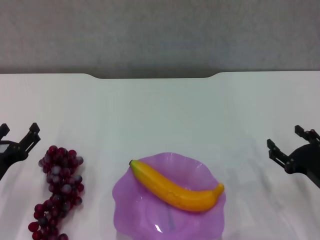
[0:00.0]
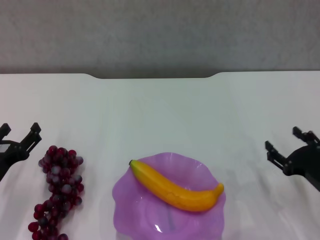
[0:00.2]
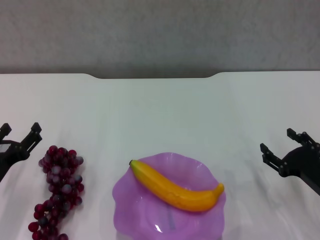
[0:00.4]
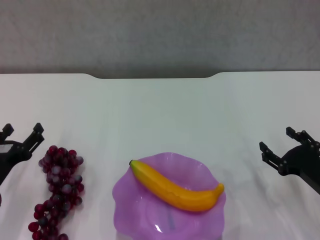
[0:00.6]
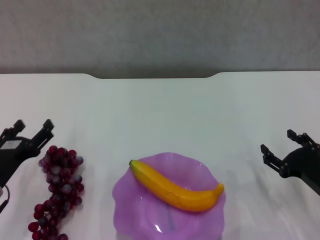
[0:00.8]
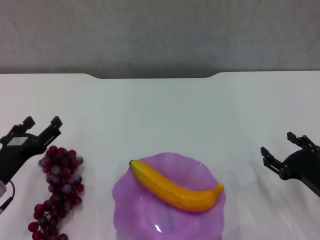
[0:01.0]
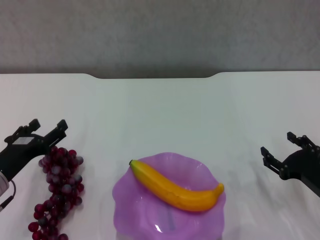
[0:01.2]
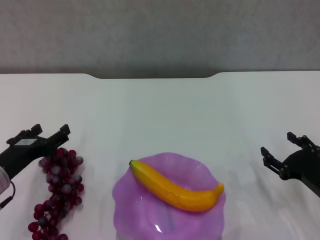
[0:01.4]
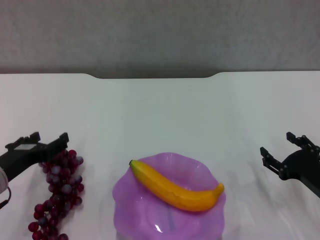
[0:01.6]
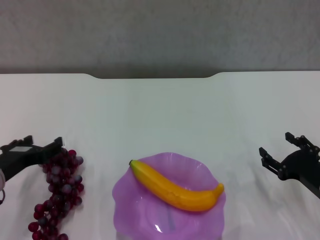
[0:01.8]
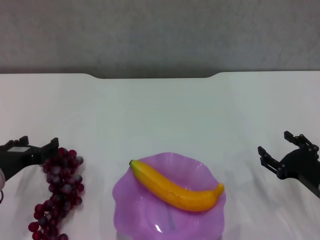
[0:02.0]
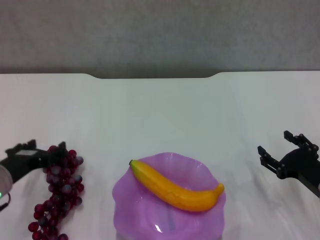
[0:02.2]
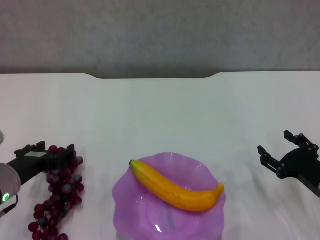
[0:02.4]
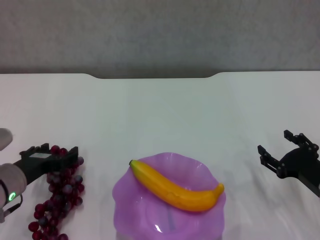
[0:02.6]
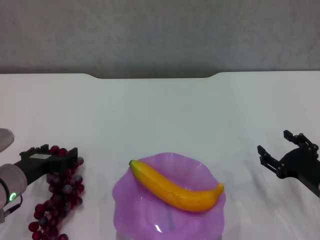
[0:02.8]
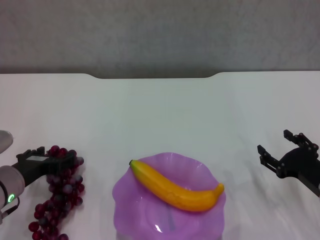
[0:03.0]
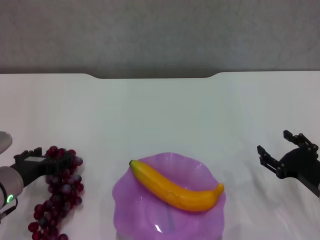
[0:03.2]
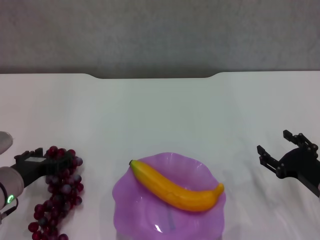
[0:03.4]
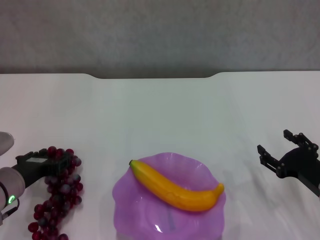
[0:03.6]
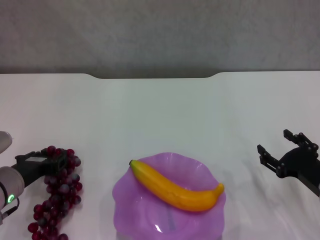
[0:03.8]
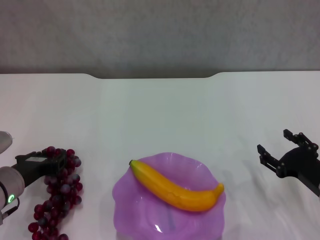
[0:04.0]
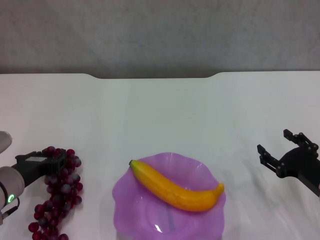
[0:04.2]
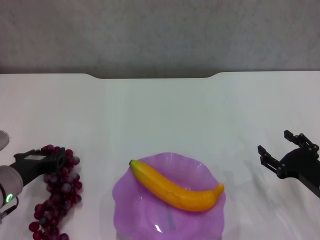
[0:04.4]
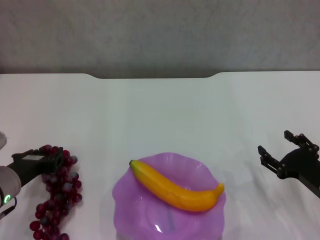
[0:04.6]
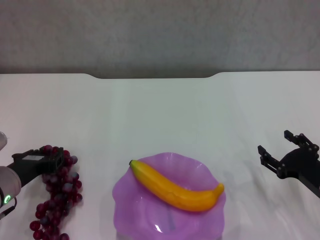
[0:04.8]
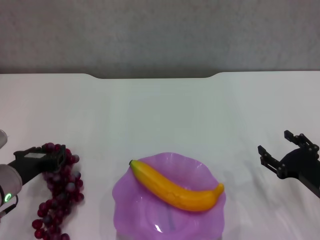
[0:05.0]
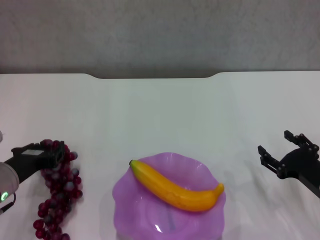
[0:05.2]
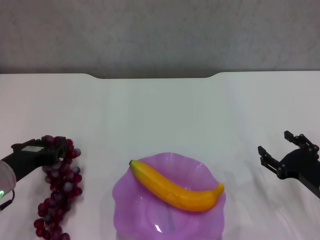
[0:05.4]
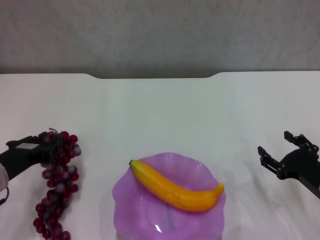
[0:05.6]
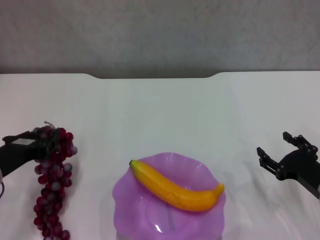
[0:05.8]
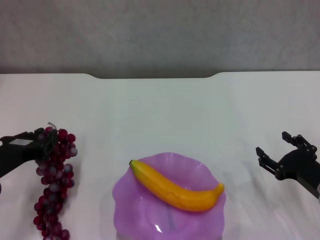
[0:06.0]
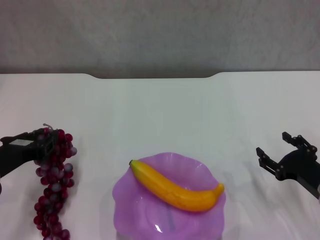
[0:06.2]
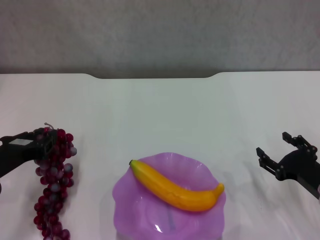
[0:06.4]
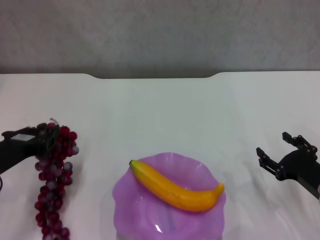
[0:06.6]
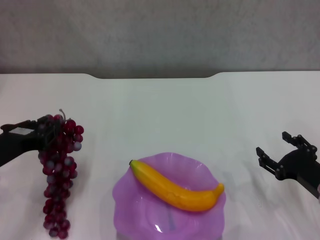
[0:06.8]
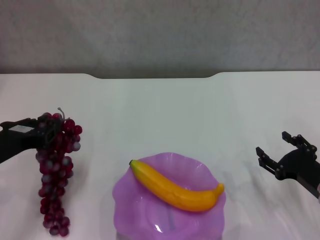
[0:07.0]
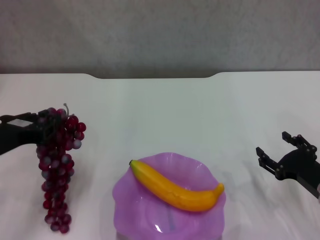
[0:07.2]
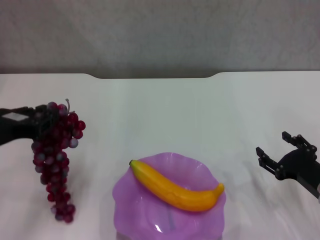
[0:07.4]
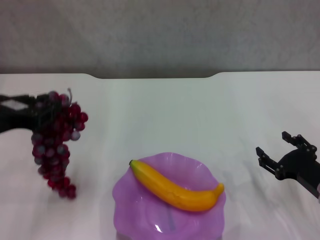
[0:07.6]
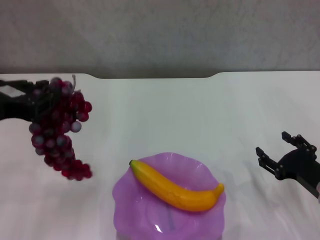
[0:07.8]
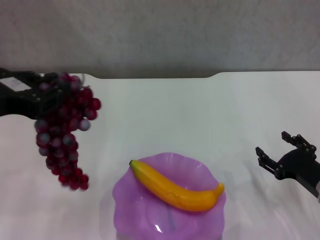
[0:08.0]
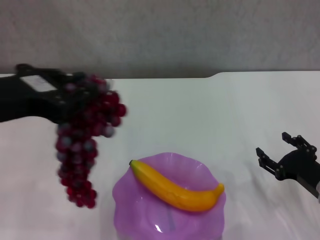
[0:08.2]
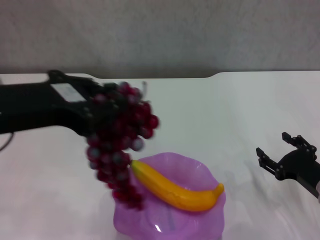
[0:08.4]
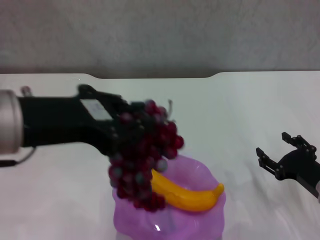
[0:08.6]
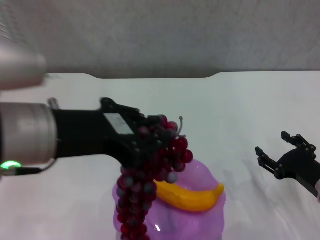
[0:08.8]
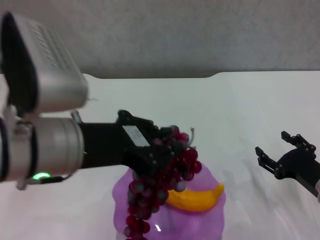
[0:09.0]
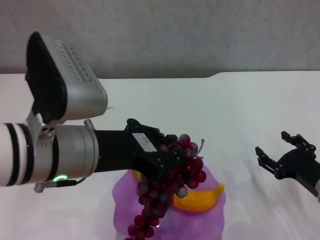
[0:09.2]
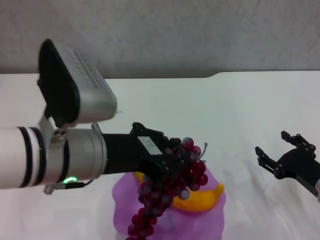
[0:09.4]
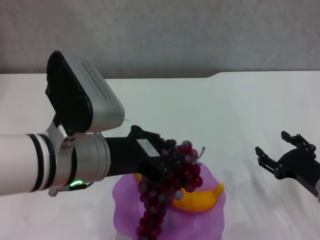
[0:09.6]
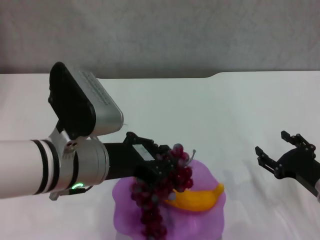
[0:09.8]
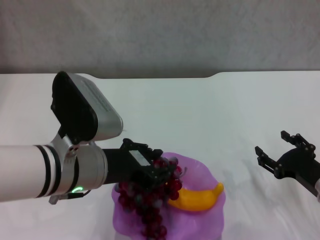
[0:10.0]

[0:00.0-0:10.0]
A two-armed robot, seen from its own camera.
Step, 0:00.0 to 0:04.2: Grasp the grape with left gripper.
0:00.0 to 0:01.4: There are only small adjustments of the grippers.
0:01.4 to 0:02.8: There are only small adjustments of the grippers.
0:02.8 to 0:04.2: The left gripper closes.
0:04.2 to 0:05.8: The left gripper shifts some 5 cm upward.
0:05.8 to 0:07.2: The left gripper heads upward, covering roughly 5 cm.
0:07.2 to 0:08.6: The left gripper heads upward and to the right, covering about 15 cm.
0:08.6 to 0:10.0: The left gripper is displaced downward and to the right by roughly 15 cm.

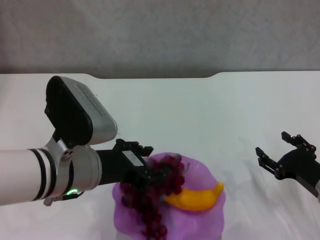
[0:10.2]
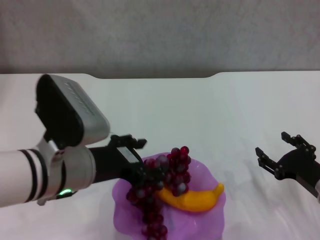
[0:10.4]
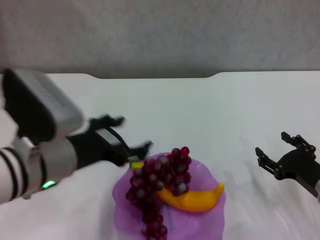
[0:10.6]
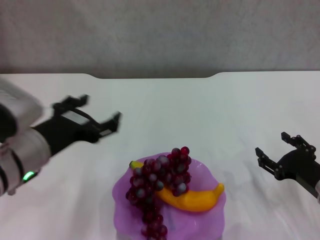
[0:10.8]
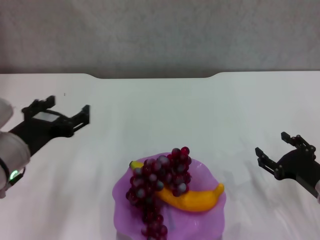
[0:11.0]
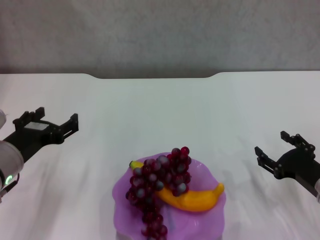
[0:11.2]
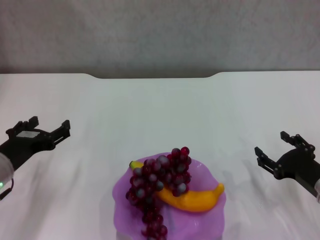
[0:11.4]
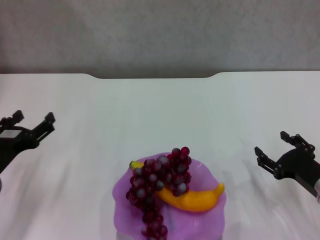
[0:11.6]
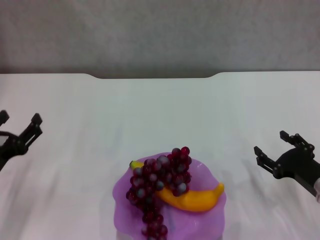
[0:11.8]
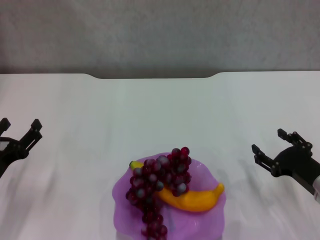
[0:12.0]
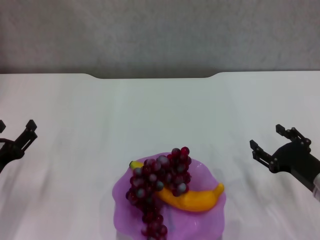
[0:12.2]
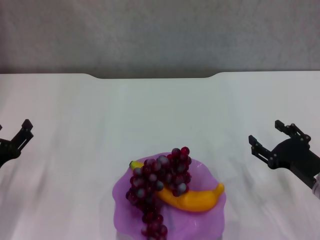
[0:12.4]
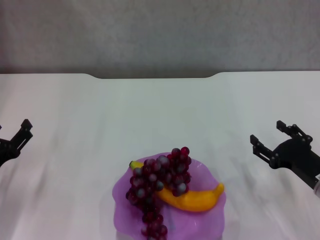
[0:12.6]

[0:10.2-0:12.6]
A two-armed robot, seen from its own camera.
0:10.2 to 0:11.4: The left gripper travels to the left and downward by approximately 15 cm, and opens.
0:11.4 to 0:12.6: The left gripper is displaced downward by some 5 cm.

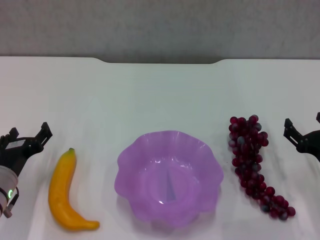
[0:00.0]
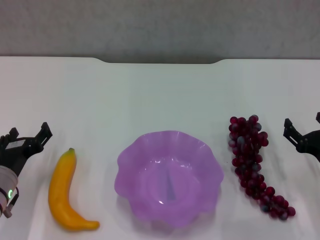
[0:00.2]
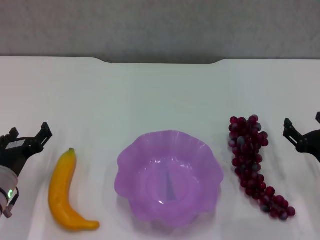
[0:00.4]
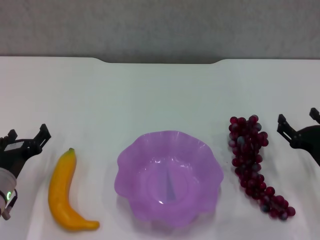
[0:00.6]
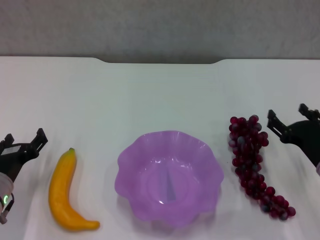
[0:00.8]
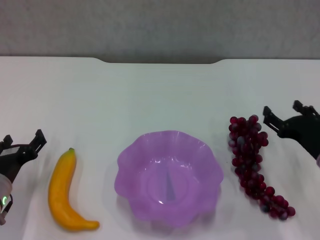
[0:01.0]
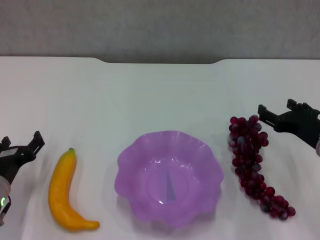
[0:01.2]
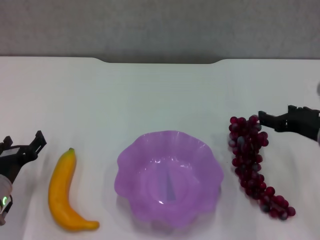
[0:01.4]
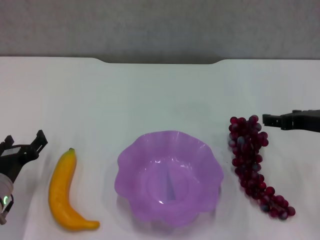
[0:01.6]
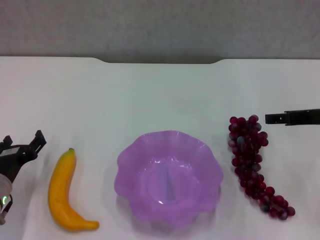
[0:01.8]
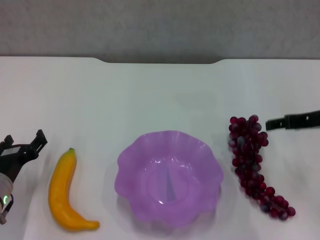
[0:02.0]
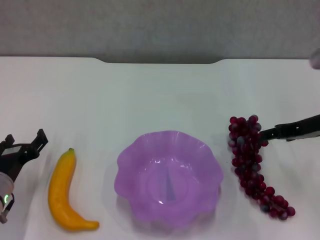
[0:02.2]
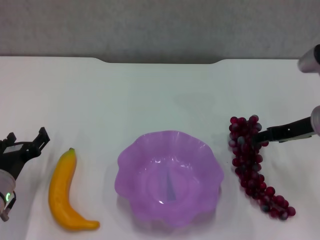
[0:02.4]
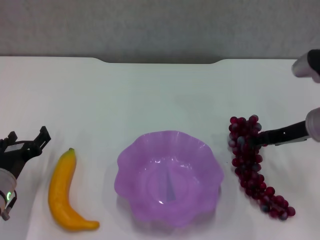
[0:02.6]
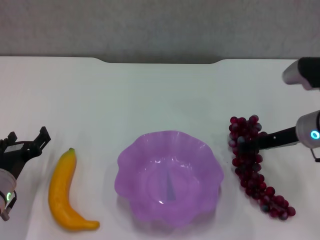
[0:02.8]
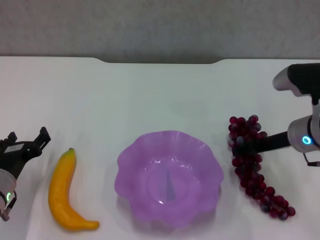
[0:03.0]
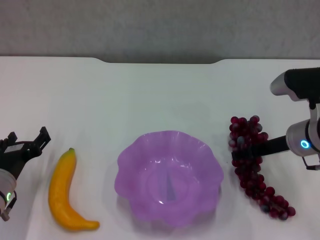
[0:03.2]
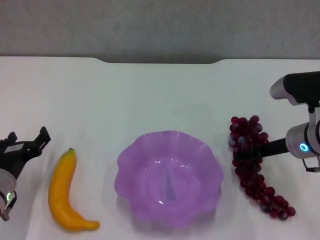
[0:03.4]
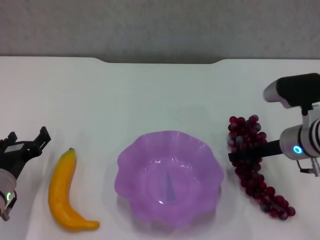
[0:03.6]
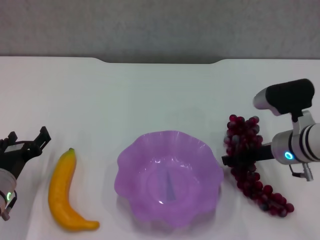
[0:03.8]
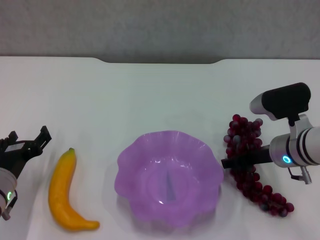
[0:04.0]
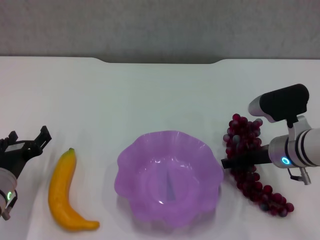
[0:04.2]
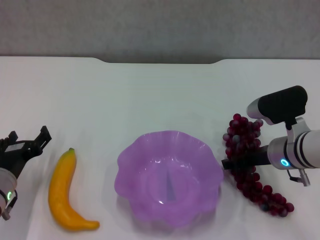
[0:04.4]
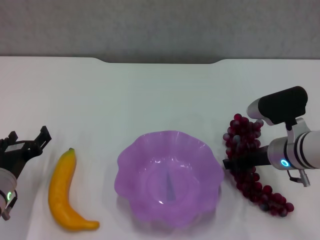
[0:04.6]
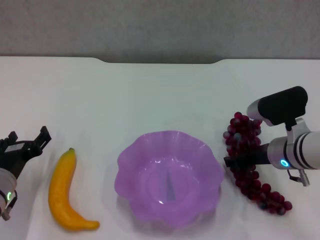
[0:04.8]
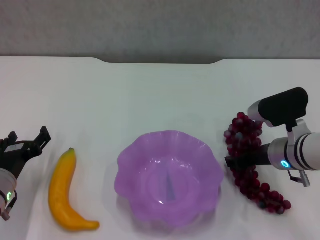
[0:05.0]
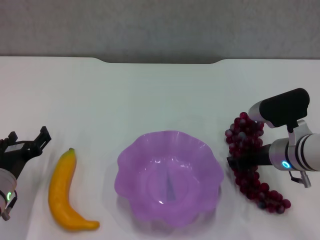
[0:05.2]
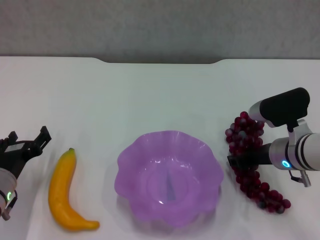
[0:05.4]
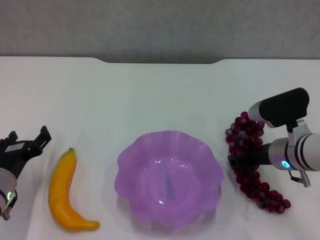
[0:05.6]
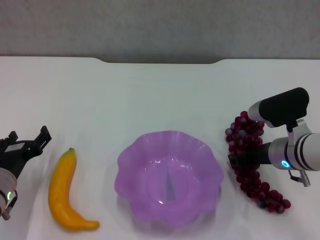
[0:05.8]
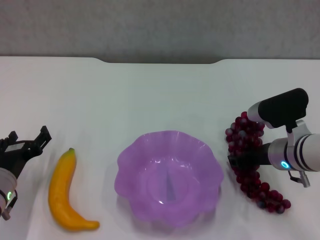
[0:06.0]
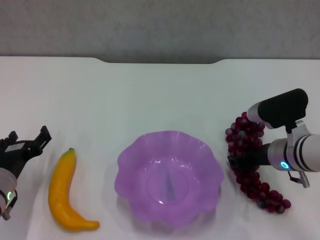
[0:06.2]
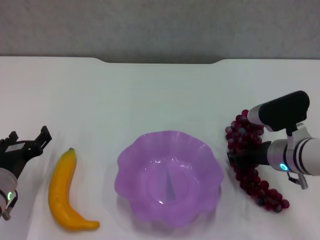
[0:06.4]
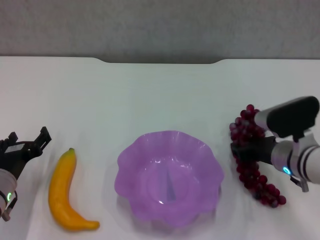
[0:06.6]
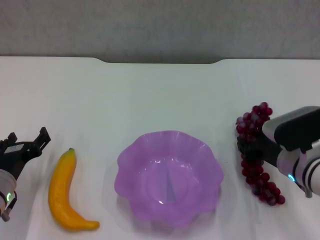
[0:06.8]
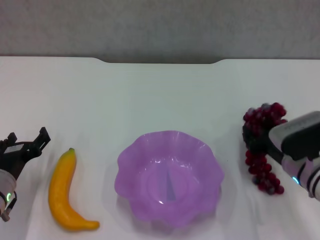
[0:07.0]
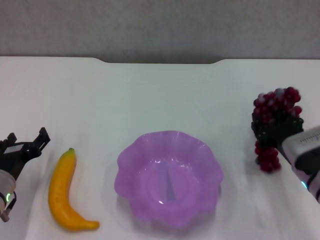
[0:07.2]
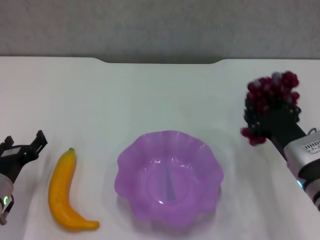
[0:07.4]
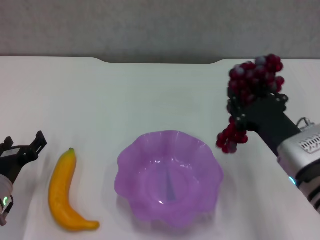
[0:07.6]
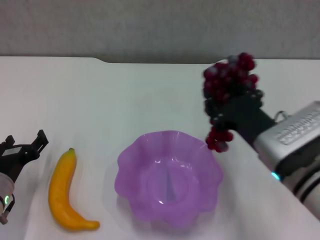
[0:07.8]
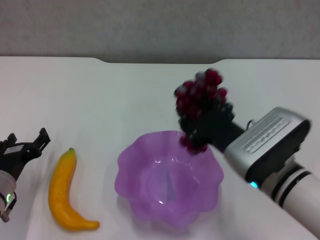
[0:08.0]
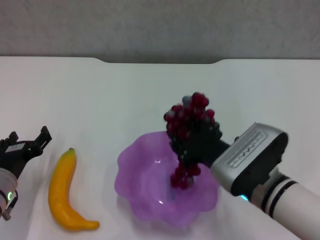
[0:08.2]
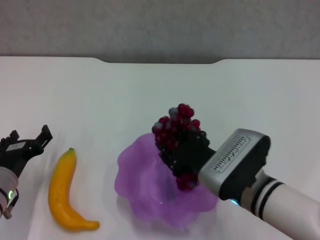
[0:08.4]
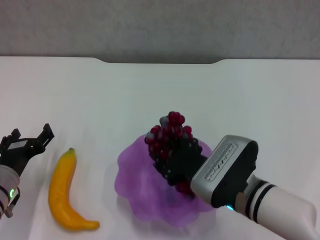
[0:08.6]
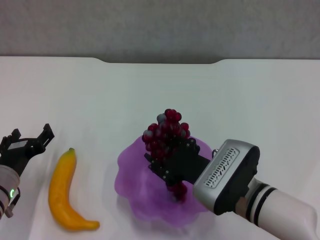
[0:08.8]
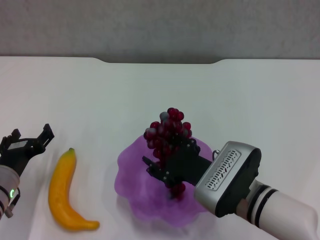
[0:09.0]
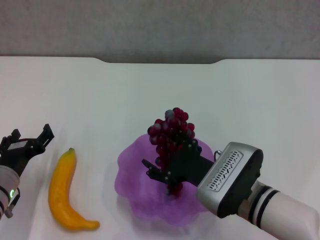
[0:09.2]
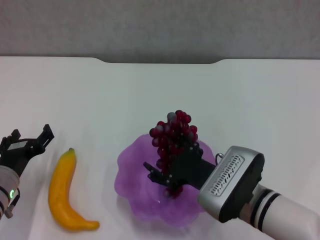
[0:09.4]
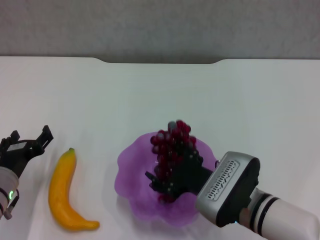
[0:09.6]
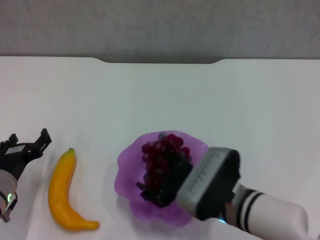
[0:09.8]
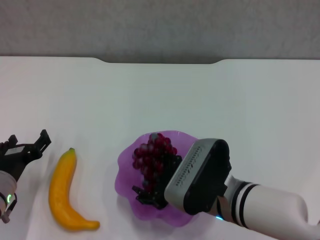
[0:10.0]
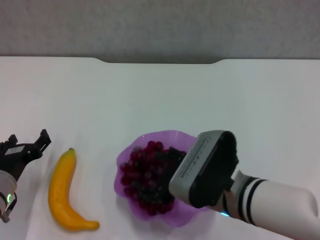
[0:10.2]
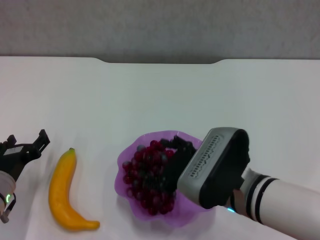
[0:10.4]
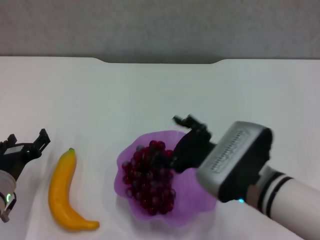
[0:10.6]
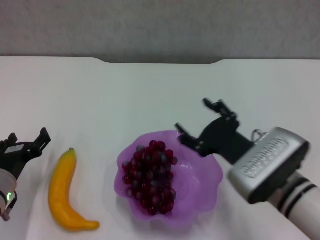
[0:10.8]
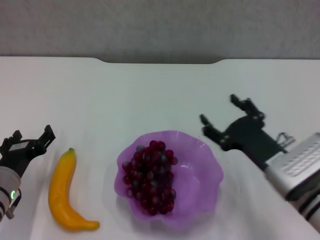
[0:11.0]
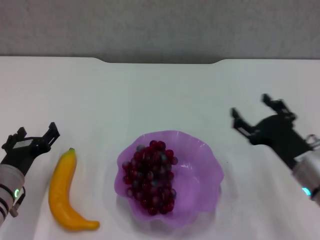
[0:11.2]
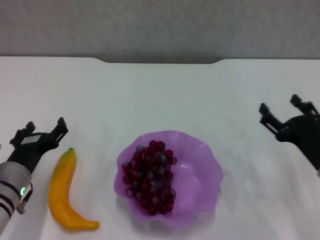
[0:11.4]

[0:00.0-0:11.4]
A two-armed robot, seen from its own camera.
Step, 0:00.0 to 0:04.8: Grasp the grape with right gripper.
Step, 0:05.2 to 0:10.6: Place the grape in the purple plate with right gripper.
0:00.0 to 0:01.4: The right gripper shifts about 10 cm upward.
0:01.4 to 0:02.8: The right gripper shifts by about 5 cm.
0:02.8 to 0:04.2: The right gripper goes approximately 5 cm downward.
0:04.2 to 0:05.6: The right gripper closes its fingers.
0:05.6 to 0:07.2: The right gripper goes some 5 cm backward.
0:07.2 to 0:08.6: The right gripper travels to the left by some 10 cm.
0:08.6 to 0:10.0: The right gripper opens up.
0:10.0 to 0:11.4: The right gripper moves to the right, some 20 cm.
